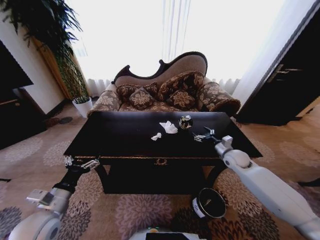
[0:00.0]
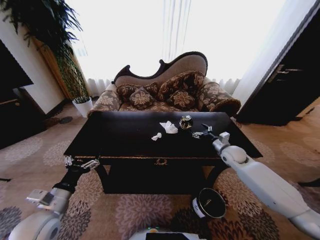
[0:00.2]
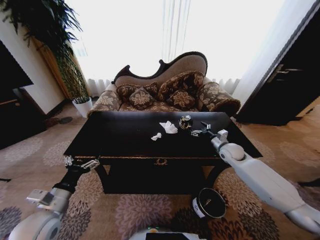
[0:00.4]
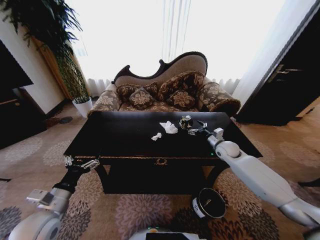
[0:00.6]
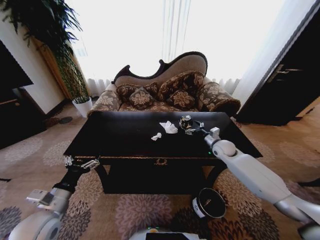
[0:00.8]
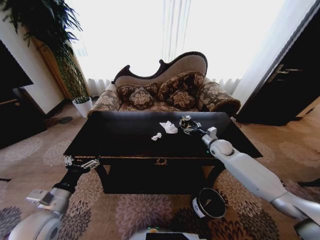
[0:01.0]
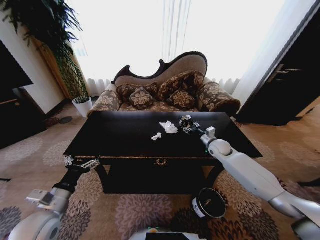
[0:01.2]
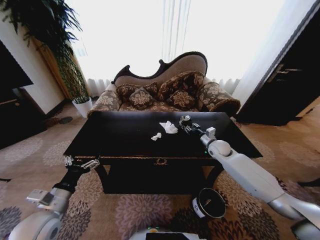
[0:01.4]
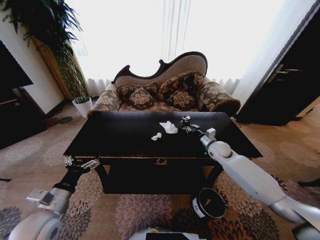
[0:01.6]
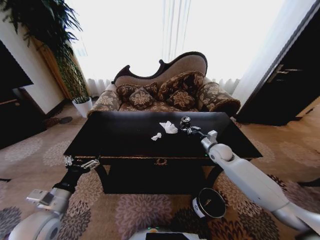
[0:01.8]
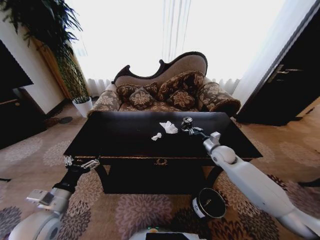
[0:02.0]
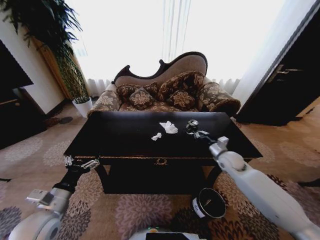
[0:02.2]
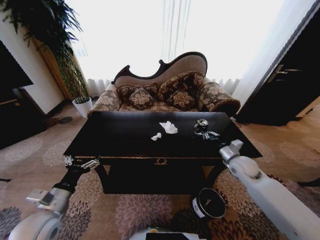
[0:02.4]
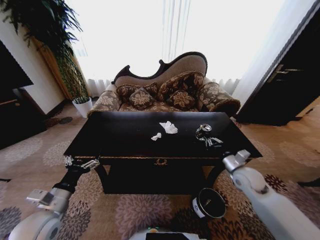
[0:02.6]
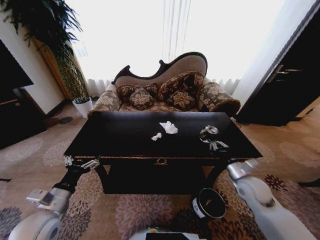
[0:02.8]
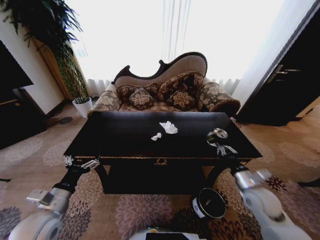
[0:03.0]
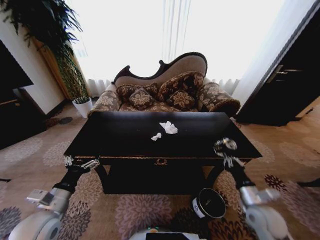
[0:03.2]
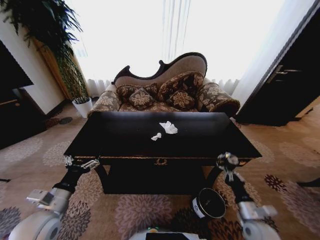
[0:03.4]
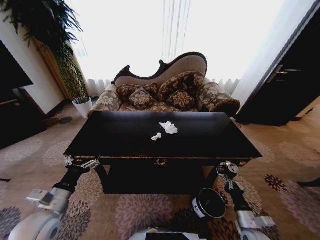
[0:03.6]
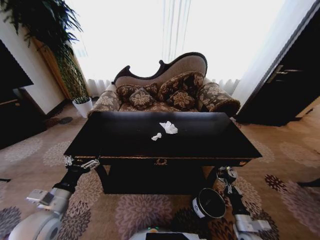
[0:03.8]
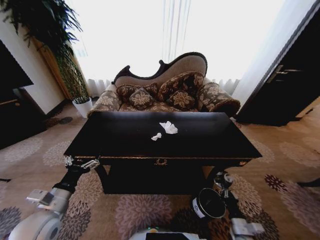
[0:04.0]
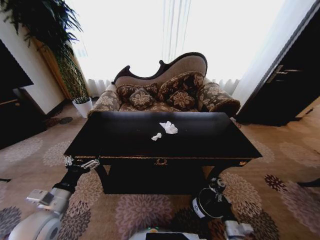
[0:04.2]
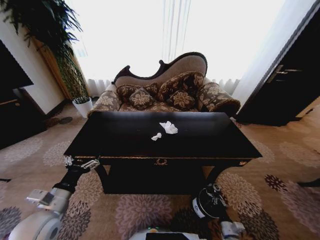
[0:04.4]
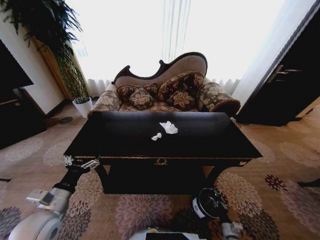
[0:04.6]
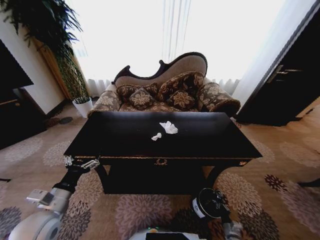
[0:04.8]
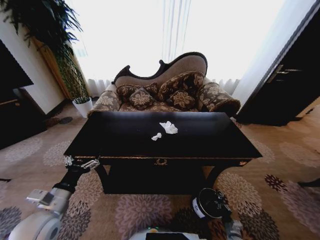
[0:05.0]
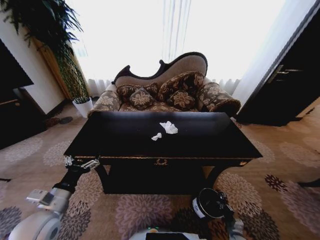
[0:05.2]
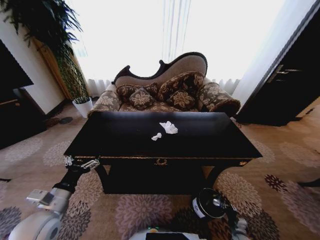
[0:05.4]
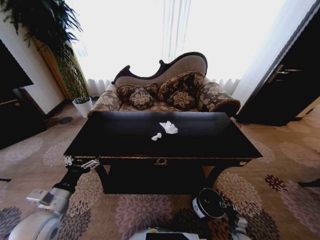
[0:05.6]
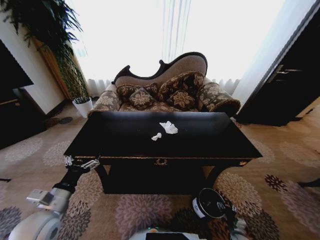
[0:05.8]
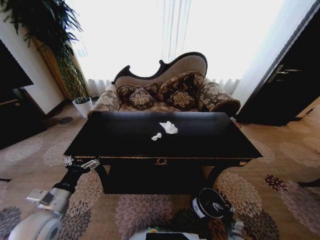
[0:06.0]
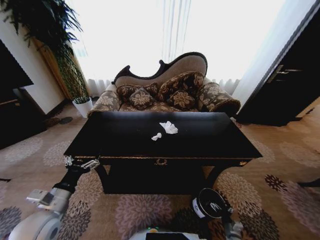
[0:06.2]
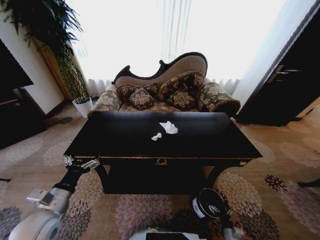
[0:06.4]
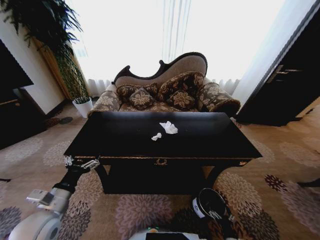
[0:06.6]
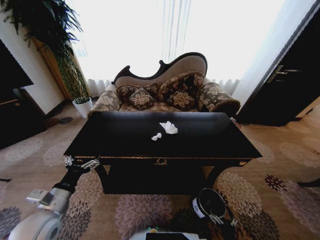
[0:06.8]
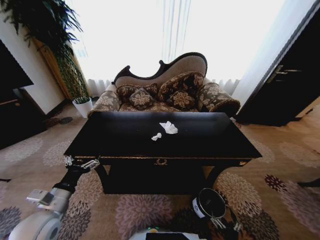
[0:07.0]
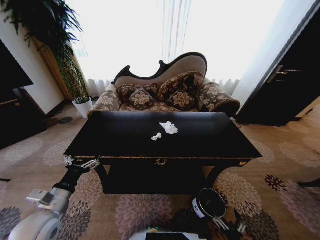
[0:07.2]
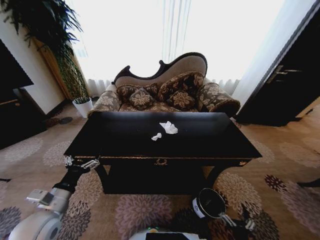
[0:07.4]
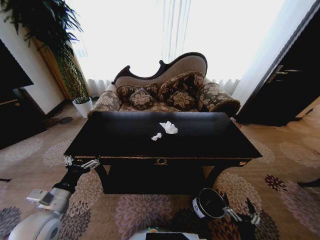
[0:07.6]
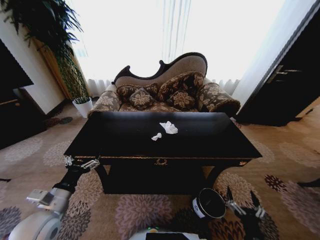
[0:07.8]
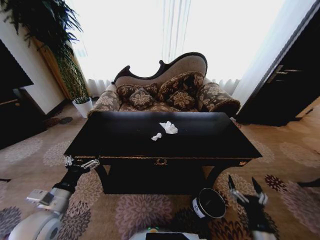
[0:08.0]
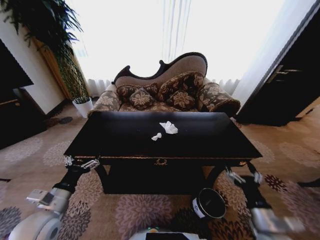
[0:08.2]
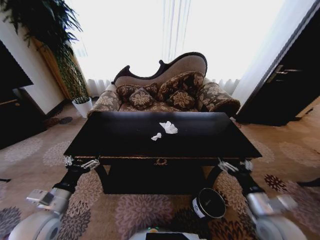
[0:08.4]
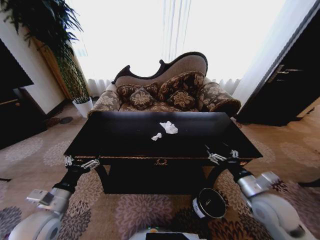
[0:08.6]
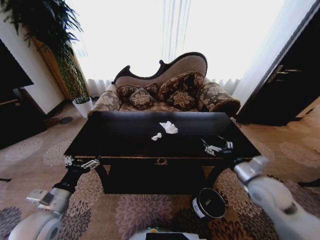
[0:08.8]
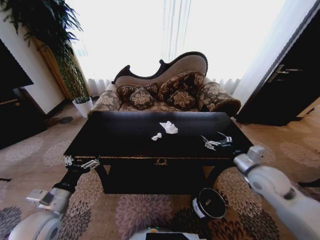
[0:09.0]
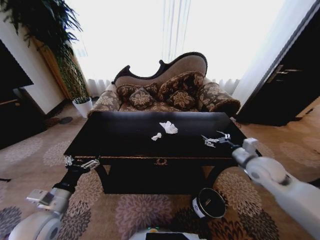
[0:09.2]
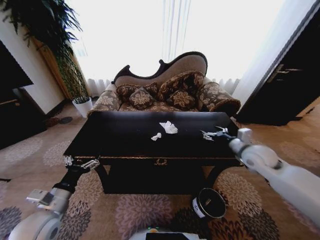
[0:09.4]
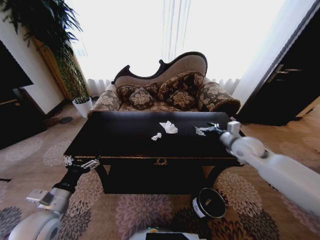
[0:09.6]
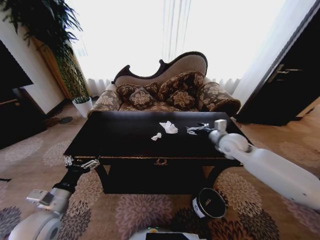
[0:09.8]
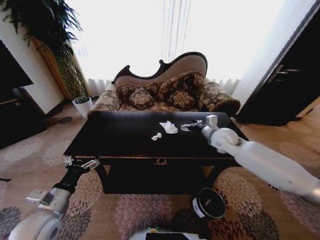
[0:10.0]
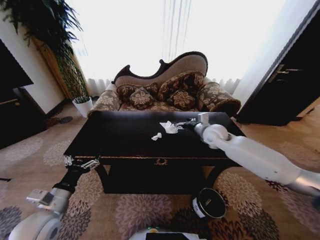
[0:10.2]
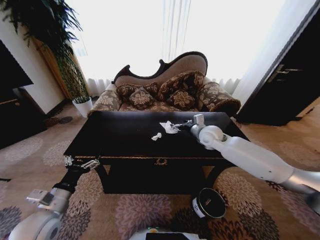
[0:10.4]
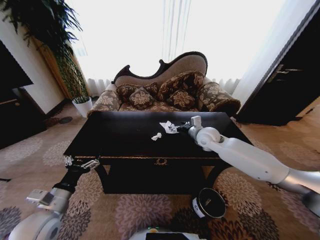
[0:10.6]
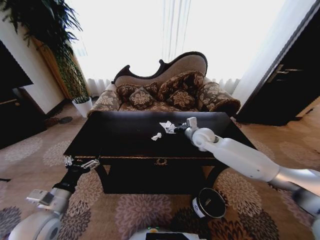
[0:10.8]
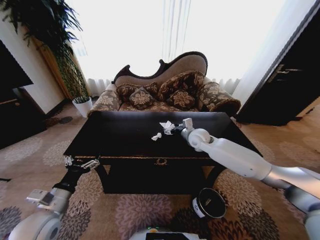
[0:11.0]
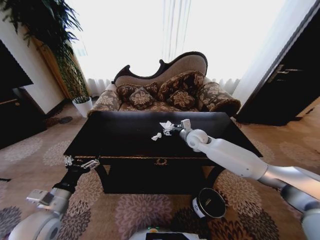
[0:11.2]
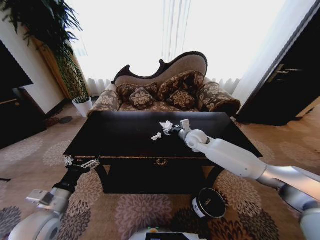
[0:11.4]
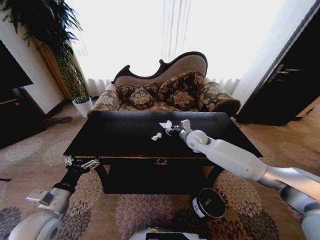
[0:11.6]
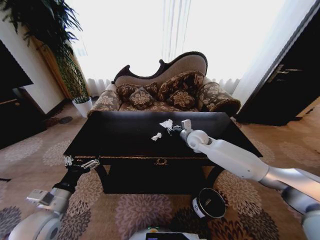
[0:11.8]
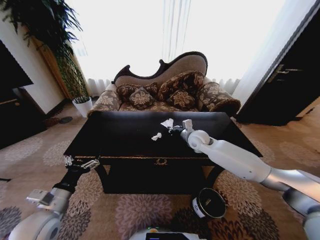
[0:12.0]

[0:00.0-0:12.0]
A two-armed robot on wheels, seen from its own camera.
Task of the whole recording: Move to the front of the table and place the trash on the table into the trash bin.
0:00.0 to 0:01.6: The right gripper travels to the left by roughly 5 cm, and closes its fingers.
0:01.6 to 0:03.0: The right gripper travels backward by roughly 20 cm.
0:03.0 to 0:04.4: The right gripper is displaced downward and backward by roughly 30 cm.
0:04.4 to 0:06.0: The right gripper moves downward and to the right, some 10 cm, and opens its fingers.
0:06.0 to 0:07.6: The right gripper travels upward, to the left and backward by some 25 cm.
0:07.6 to 0:09.0: The right gripper travels forward and upward by some 35 cm.
0:09.0 to 0:10.4: The right gripper travels forward and to the left by roughly 20 cm.
0:10.4 to 0:12.0: The right gripper shifts by some 5 cm, and closes its fingers.

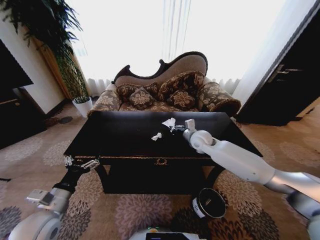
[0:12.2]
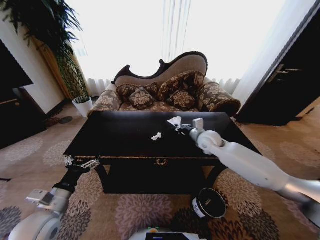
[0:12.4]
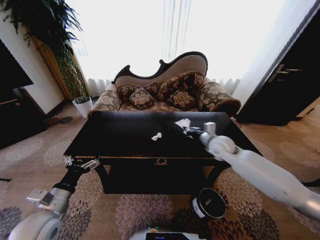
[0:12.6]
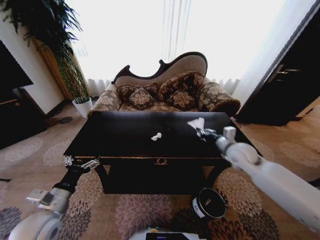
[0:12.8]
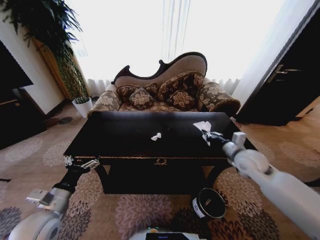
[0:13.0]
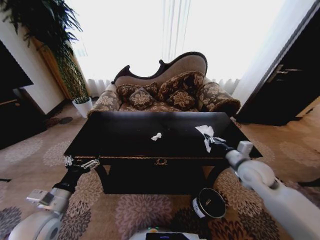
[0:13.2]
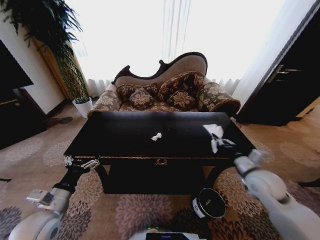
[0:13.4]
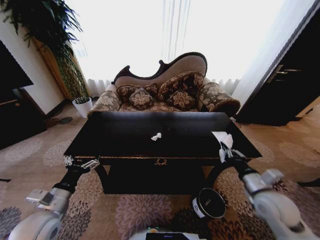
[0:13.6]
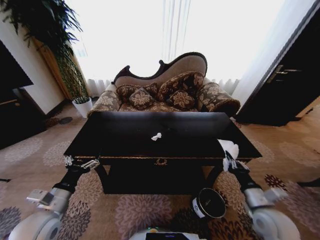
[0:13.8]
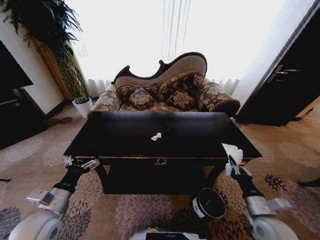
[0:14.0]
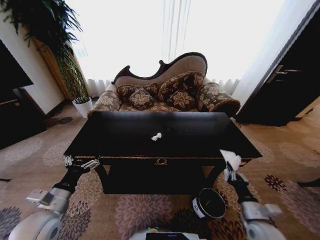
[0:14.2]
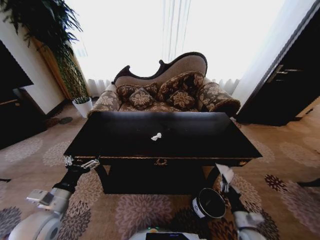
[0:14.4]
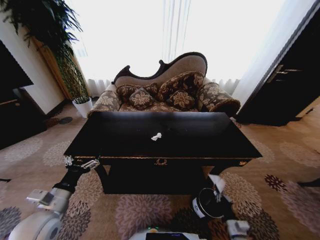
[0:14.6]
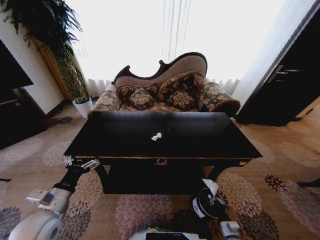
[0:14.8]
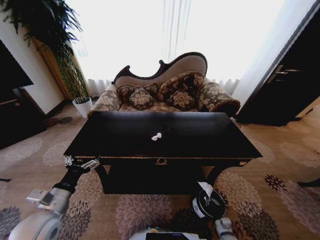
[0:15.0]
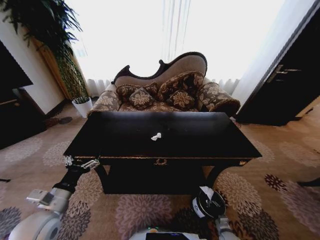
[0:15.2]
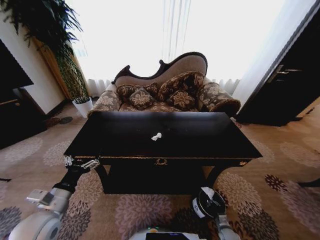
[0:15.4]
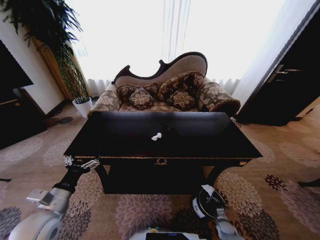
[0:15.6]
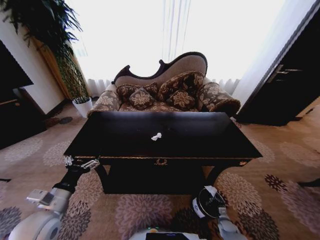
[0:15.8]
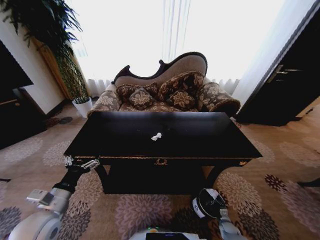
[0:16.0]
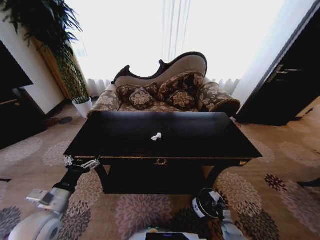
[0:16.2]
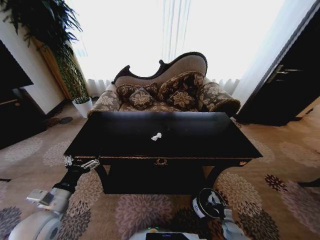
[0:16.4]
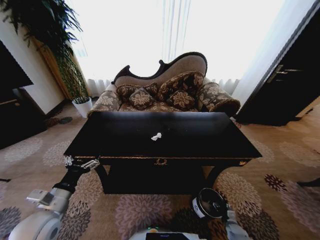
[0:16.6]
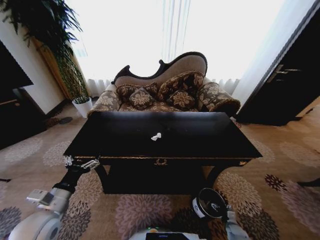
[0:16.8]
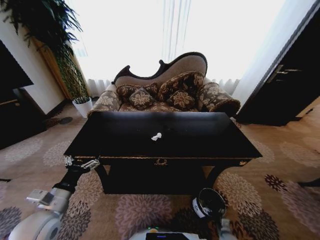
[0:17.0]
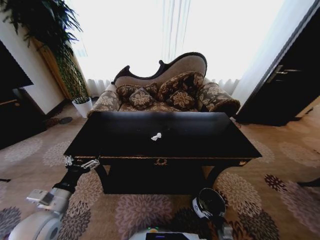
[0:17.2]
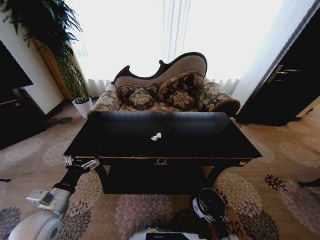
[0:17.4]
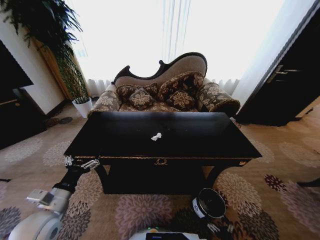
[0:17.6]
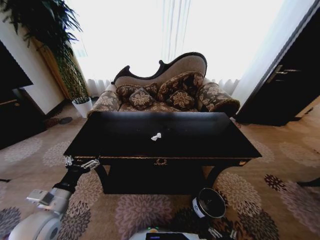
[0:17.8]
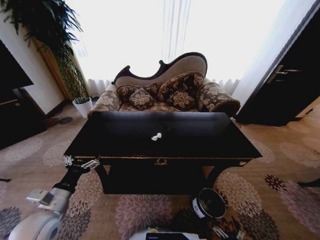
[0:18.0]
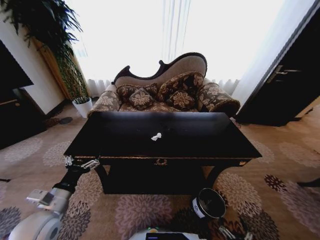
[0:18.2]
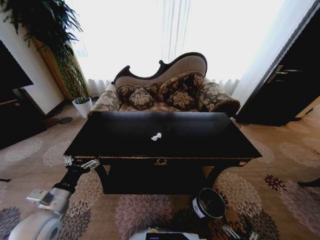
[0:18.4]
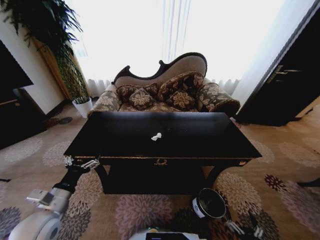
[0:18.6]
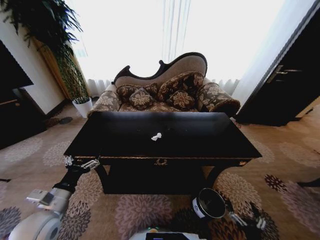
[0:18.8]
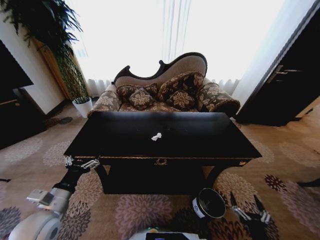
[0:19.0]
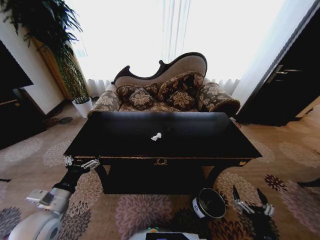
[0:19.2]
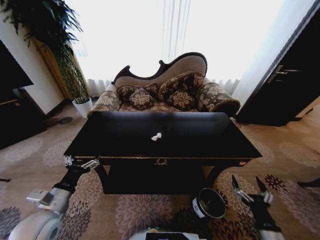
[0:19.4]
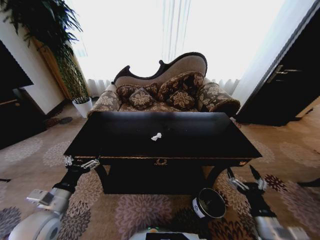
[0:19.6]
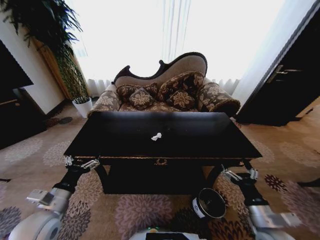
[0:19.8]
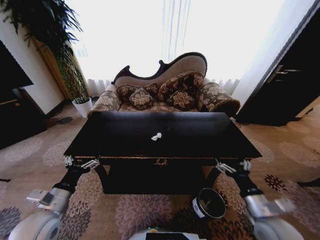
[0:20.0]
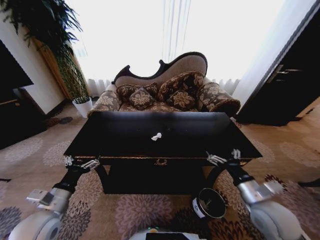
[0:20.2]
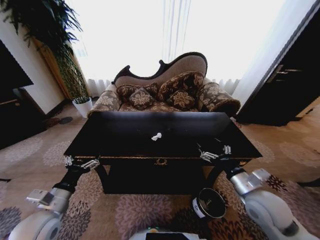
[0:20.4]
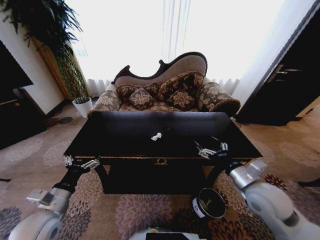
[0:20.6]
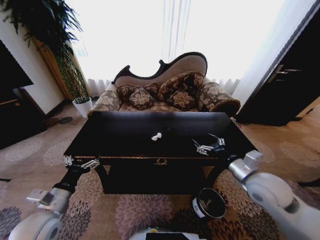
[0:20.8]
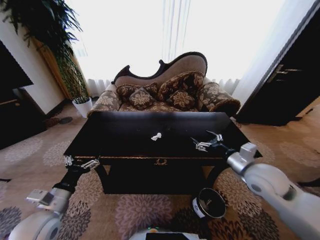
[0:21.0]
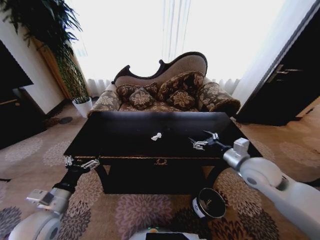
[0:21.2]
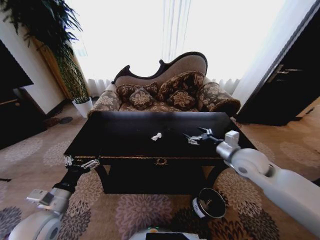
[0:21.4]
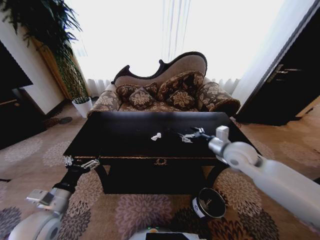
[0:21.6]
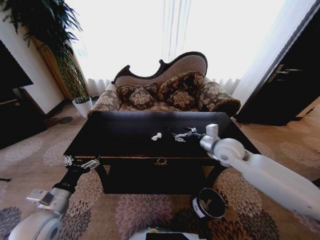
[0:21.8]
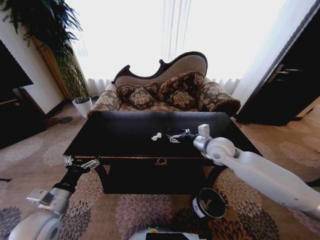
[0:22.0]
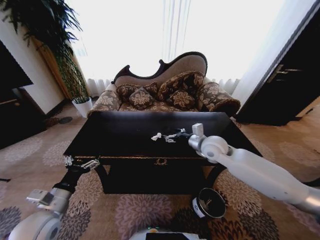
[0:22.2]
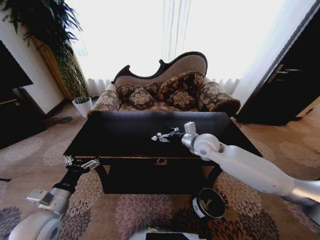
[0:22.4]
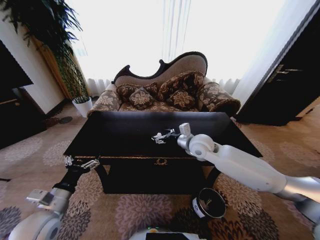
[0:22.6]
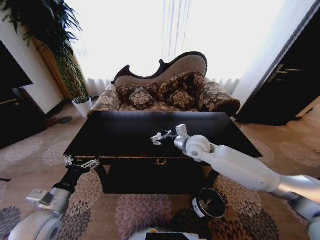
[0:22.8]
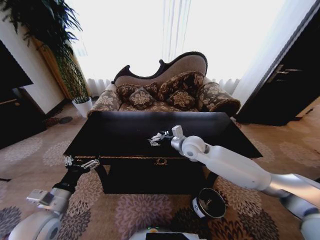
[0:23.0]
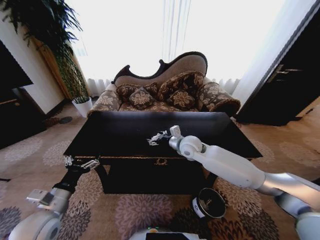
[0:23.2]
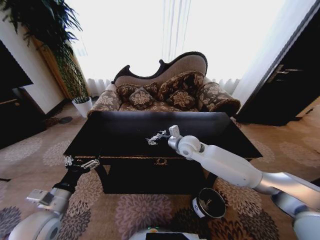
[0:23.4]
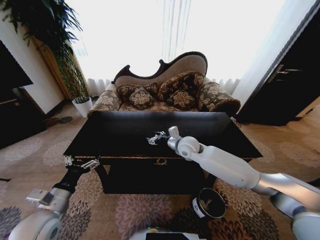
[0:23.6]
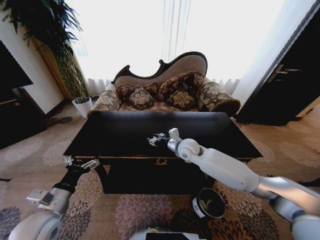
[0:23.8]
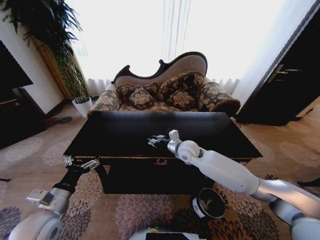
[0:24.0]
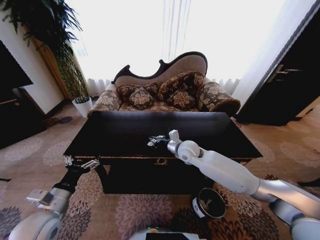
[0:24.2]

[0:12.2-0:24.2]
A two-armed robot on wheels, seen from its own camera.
Task of the whole recording: Move to the front of the table and place the trash on the table into the trash bin.
0:12.2 to 0:13.8: The right gripper moves backward and to the right, about 35 cm.
0:13.8 to 0:15.2: The right gripper is displaced downward by some 35 cm.
0:15.2 to 0:16.6: The right gripper moves to the right, roughly 5 cm, and opens.
0:16.6 to 0:18.2: The right gripper heads backward, upward and to the left, covering approximately 25 cm, and opens its fingers.
0:18.2 to 0:19.8: The right gripper shifts about 30 cm upward and forward.
0:19.8 to 0:21.2: The right gripper travels forward and upward by approximately 20 cm.
0:21.2 to 0:22.6: The right gripper moves to the left and forward, some 20 cm.
0:22.6 to 0:24.2: The right gripper moves downward, approximately 5 cm, and closes.
